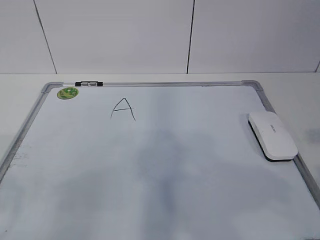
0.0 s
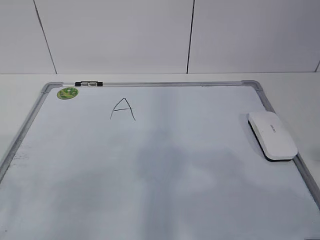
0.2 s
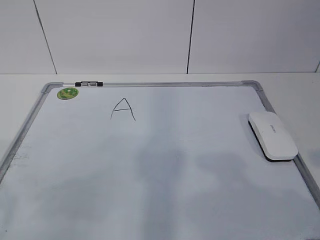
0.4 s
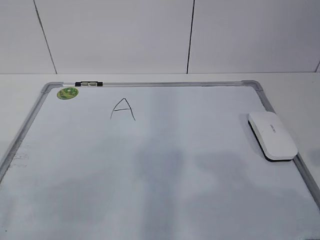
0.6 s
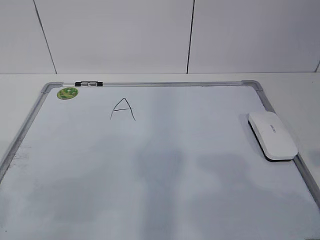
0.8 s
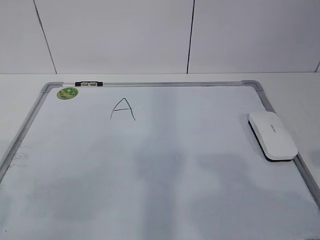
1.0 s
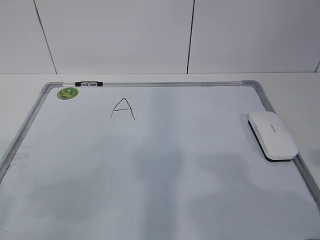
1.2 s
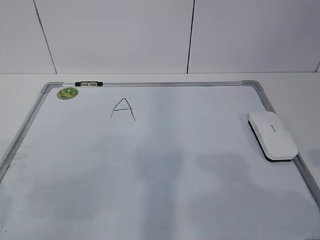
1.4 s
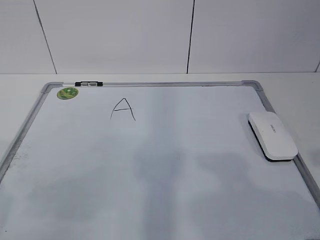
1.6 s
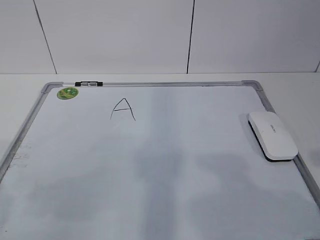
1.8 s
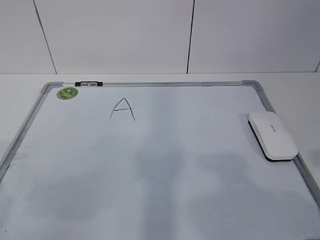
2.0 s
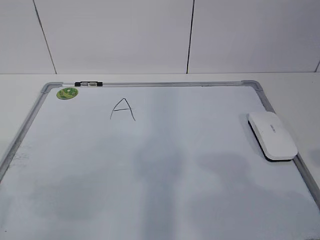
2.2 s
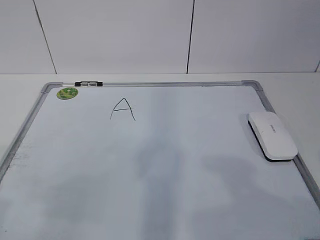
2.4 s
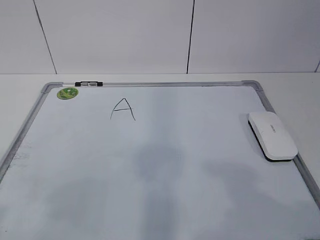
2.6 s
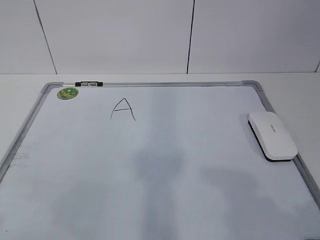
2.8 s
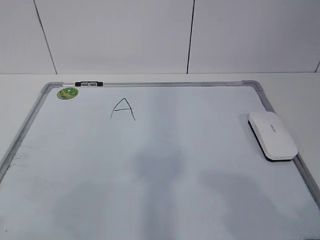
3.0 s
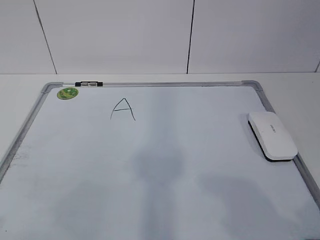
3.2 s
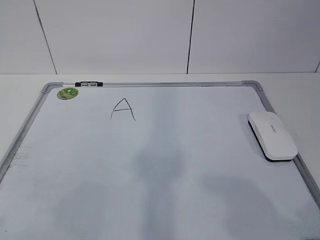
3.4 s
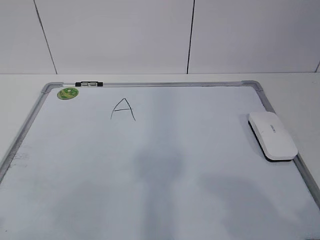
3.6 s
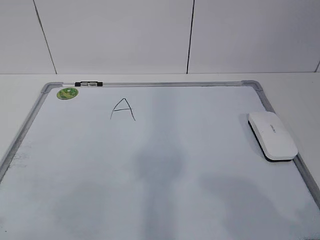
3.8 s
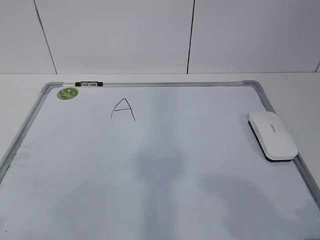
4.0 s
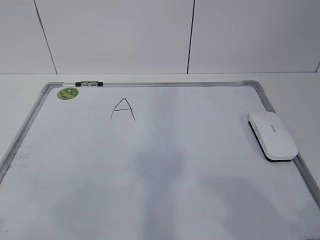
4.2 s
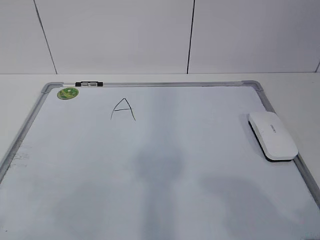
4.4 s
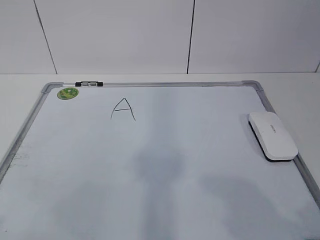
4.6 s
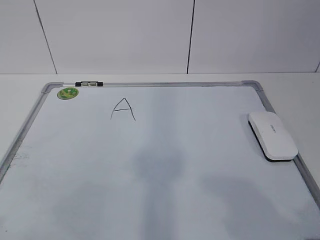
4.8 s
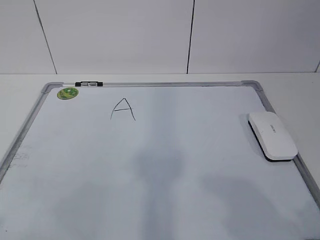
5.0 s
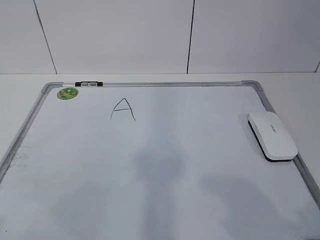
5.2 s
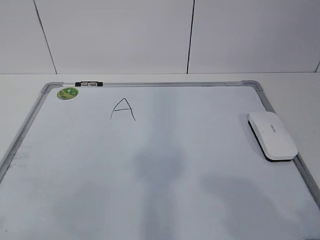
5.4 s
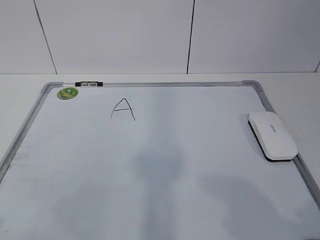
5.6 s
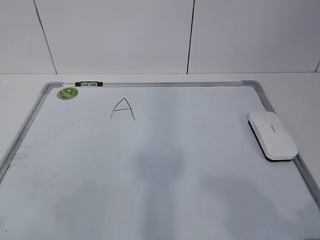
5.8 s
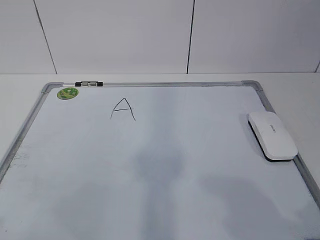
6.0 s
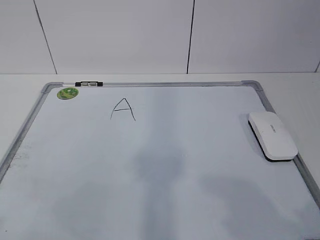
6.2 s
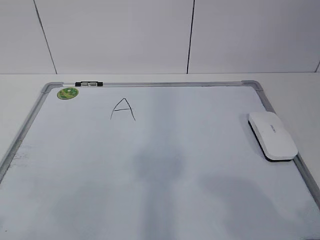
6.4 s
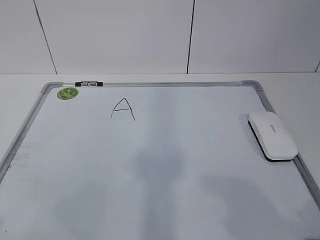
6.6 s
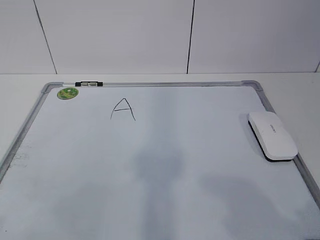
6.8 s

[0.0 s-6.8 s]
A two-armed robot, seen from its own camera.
Task of the whole recording: pick up the eraser on the blackboard and erase the letter "a".
4.0 to 6.8 s: Neither gripper changes place.

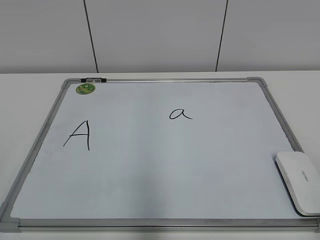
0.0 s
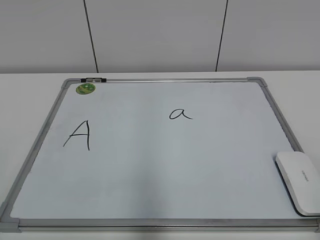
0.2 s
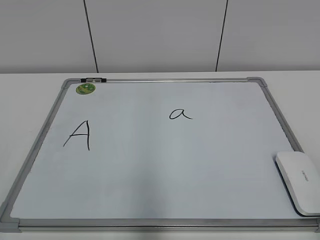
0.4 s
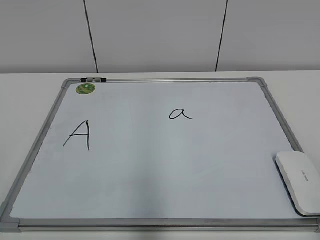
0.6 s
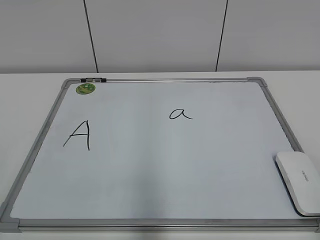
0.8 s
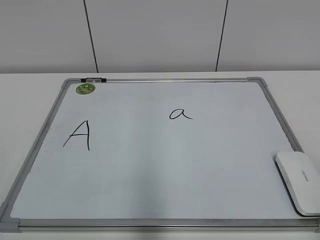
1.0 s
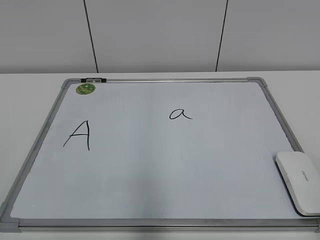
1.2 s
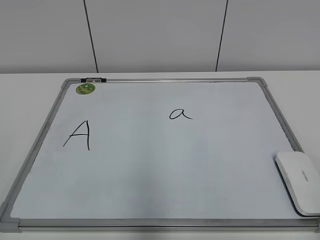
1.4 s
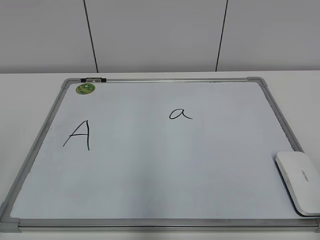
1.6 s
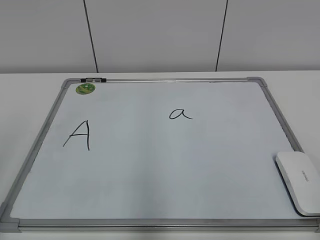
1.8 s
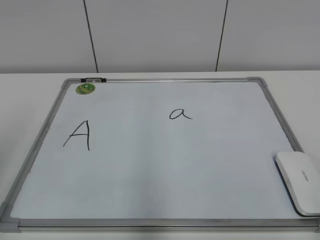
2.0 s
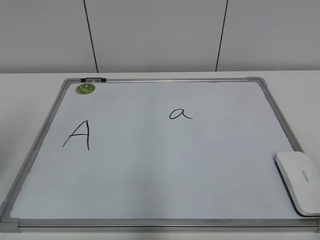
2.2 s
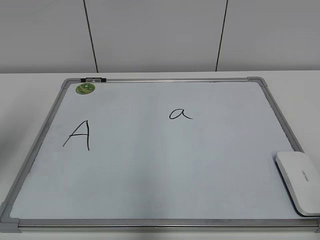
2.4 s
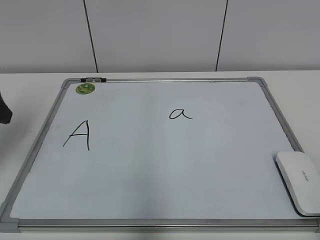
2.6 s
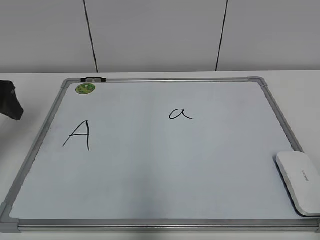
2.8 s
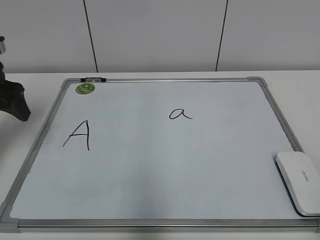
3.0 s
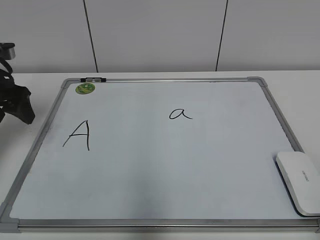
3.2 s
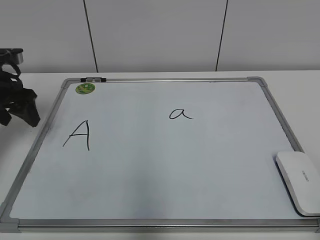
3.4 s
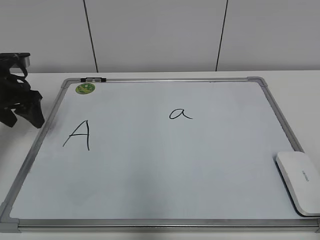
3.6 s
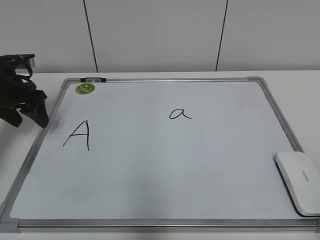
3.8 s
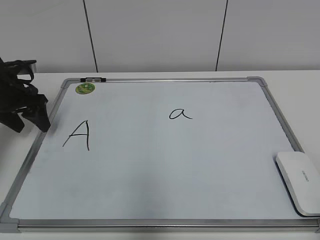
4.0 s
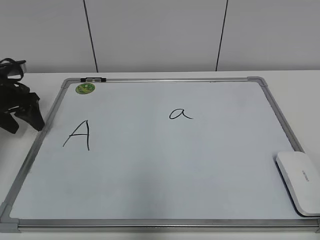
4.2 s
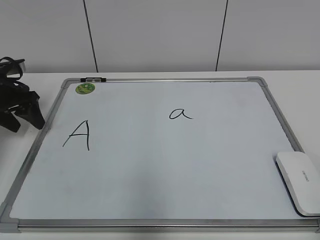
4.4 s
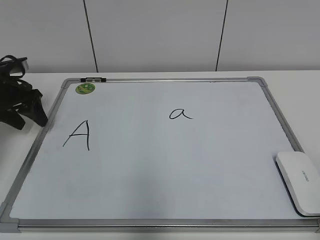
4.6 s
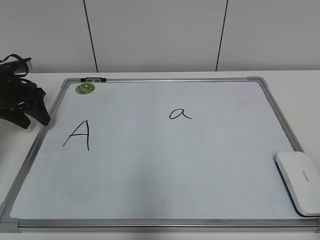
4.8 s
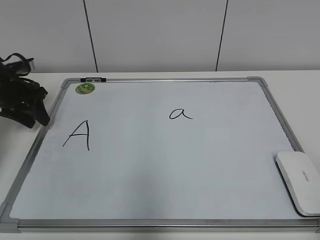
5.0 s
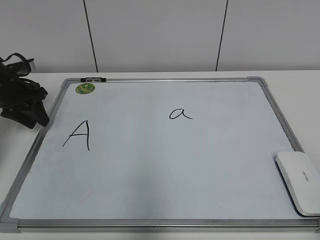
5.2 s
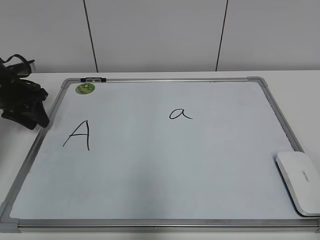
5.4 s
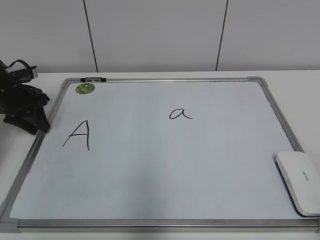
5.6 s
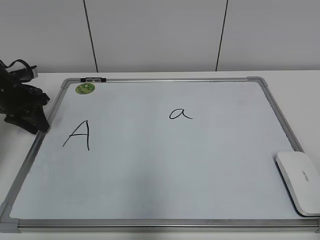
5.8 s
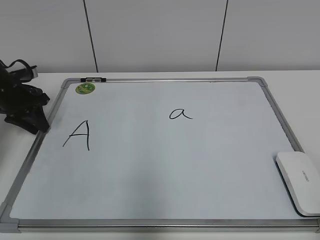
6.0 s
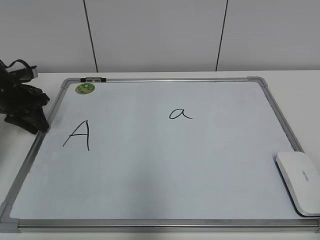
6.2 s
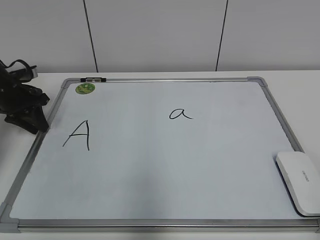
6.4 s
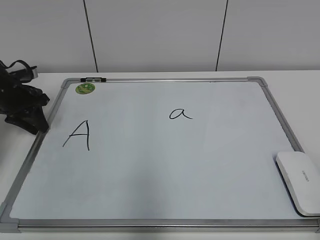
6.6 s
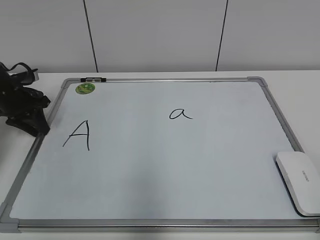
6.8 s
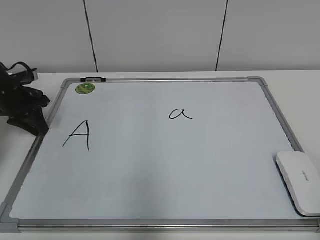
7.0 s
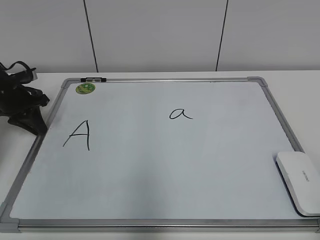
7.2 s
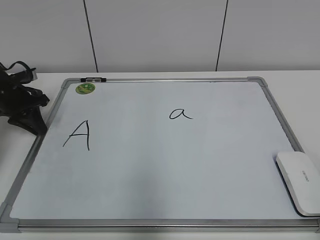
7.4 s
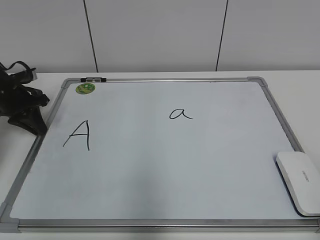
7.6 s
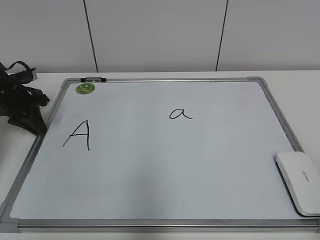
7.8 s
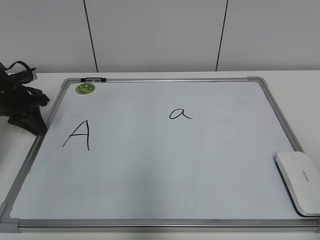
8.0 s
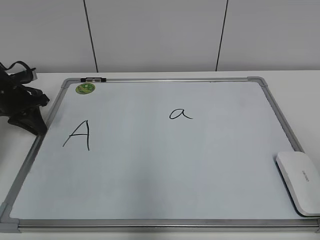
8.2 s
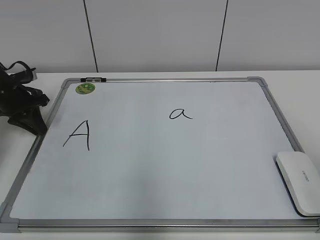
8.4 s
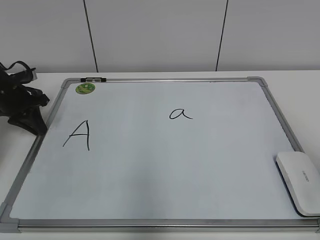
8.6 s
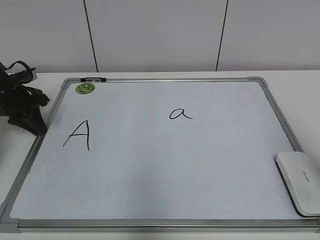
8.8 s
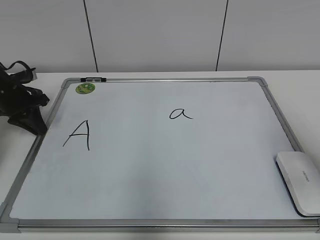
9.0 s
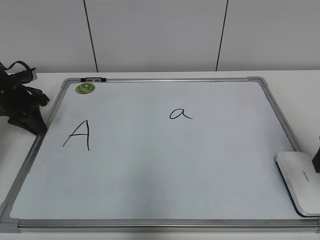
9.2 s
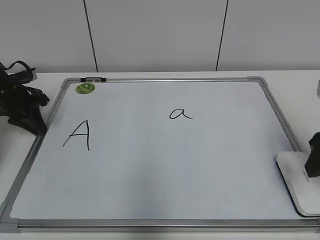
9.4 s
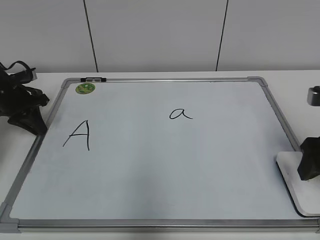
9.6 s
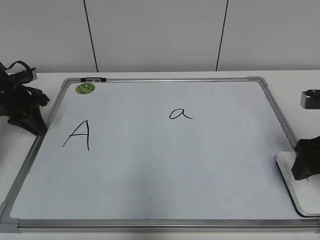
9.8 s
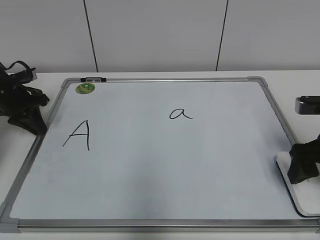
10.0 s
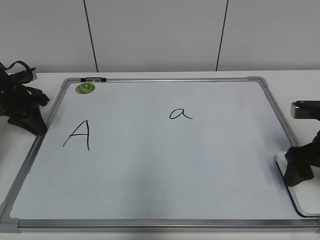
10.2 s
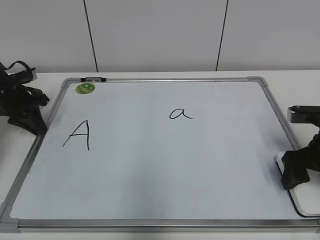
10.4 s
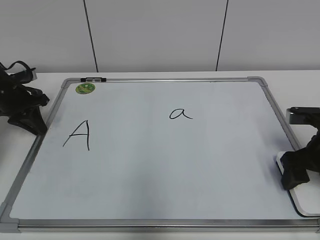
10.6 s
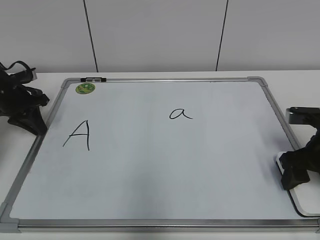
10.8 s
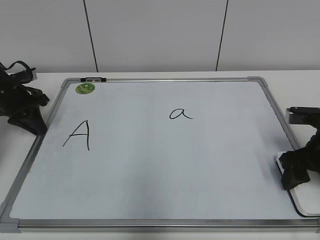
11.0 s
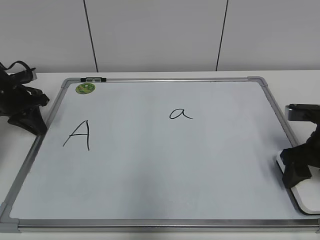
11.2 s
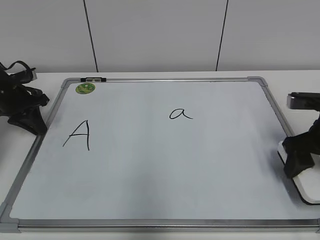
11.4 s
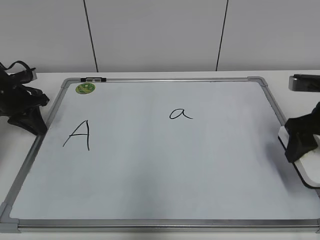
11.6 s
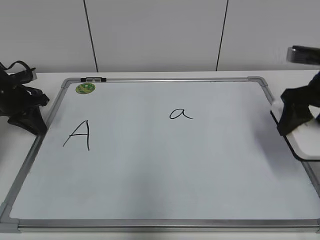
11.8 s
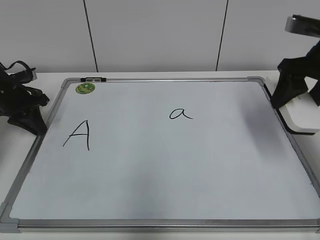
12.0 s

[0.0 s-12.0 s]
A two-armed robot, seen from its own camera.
Task of the whole recording: pick up the eraser on the blackboard and erase the letter "a".
Step, 0.0 to 7.0 s: Hold the drawing board steady with your left hand.
Step, 7.2 to 10.8 s: Grab the eraser with your right hand.
1.6 to 3.0 s: The left gripper goes approximately 30 cm forward.
3.0 to 4.4 s: The left gripper moves downward and forward, about 10 cm.
4.4 to 6.0 s: The left gripper closes up.
6.0 to 7.6 s: The two grippers keep their place.
7.6 to 9.0 s: The right gripper is displaced forward by about 20 cm.
9.0 to 10.4 s: The right gripper is displaced downward and forward by some 15 cm, and opens up.
10.4 to 12.0 s: The right gripper moves upward and forward, approximately 15 cm, and closes up.

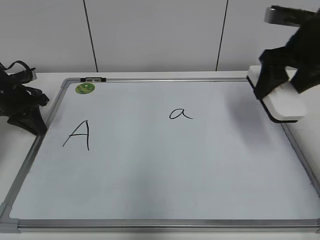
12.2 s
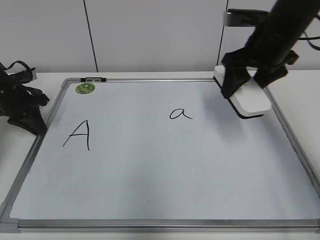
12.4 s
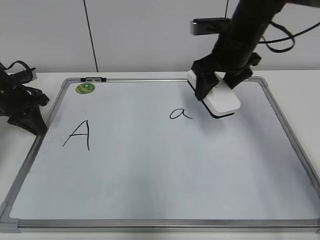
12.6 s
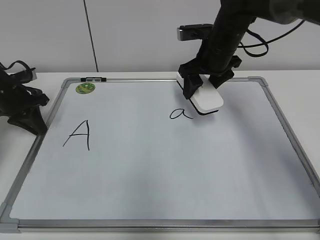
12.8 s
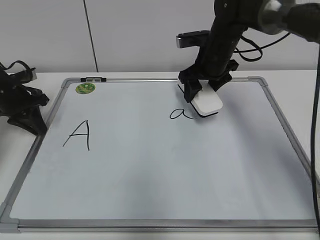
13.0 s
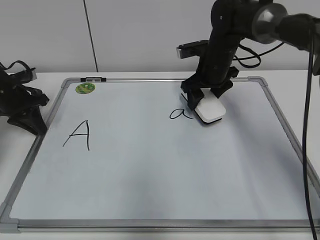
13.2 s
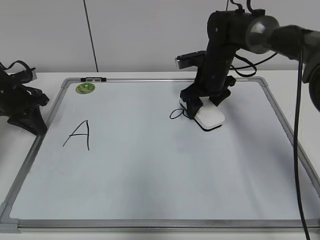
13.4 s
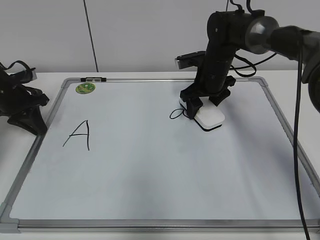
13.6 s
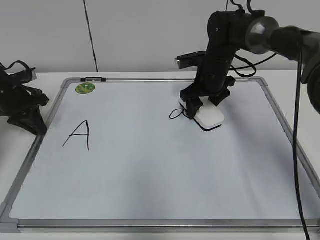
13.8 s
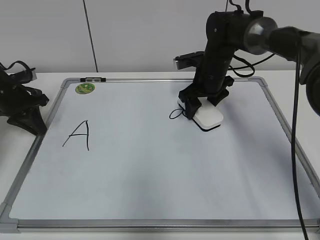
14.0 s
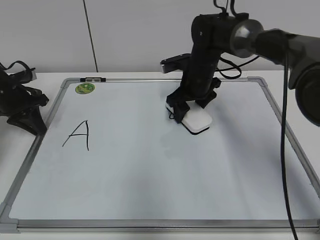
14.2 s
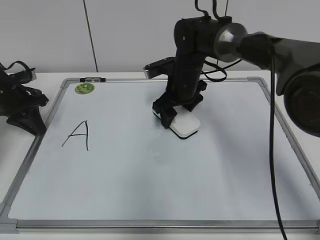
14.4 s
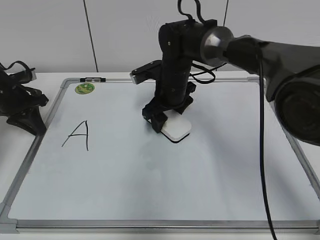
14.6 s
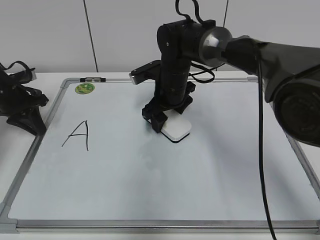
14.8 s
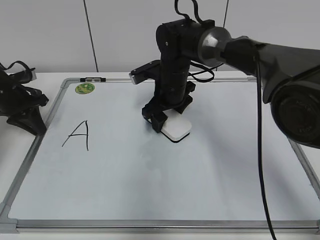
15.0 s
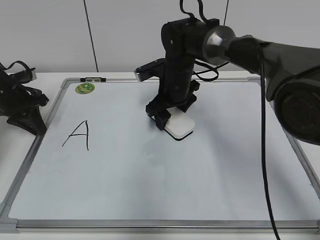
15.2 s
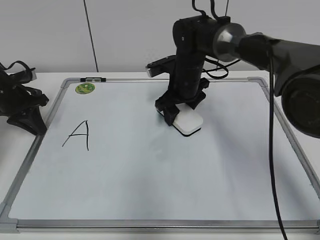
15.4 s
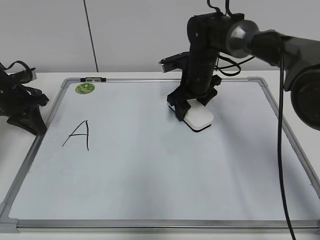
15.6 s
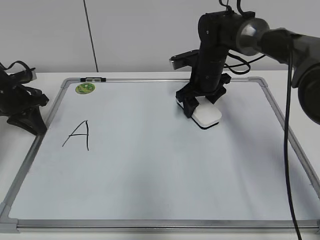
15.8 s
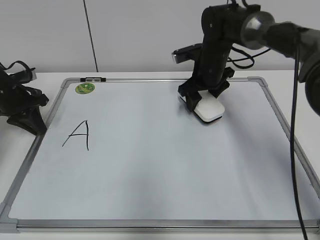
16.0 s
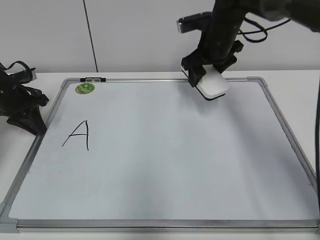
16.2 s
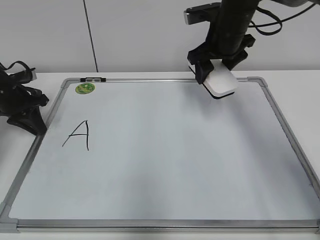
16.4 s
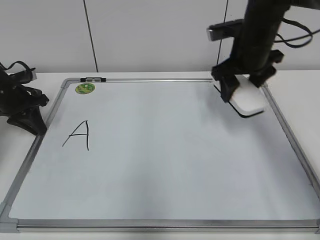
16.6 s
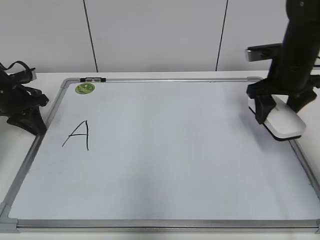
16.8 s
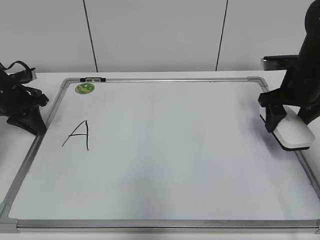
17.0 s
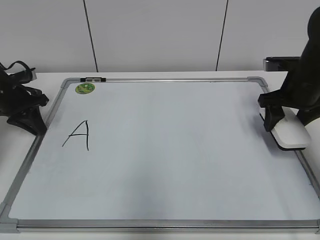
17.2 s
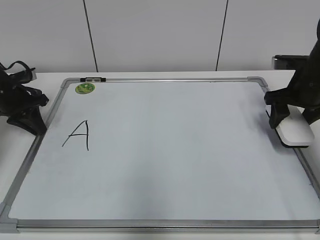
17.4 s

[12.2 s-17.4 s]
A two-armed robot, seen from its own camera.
Task of the whole recording: pick up the eraser on the blackboard and erase the letter "a".
Step, 12.2 to 15.8 s: Erase the letter a with your right hand.
12.2 to 14.0 s: The right gripper heads downward, forward and to the left, covering roughly 20 cm.
14.0 to 15.6 s: The right gripper goes to the left and returns, roughly 10 cm each way.
15.6 to 17.4 s: The right gripper travels to the right and backward by approximately 20 cm.
